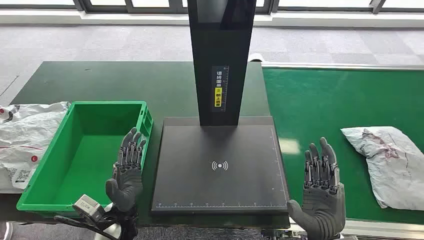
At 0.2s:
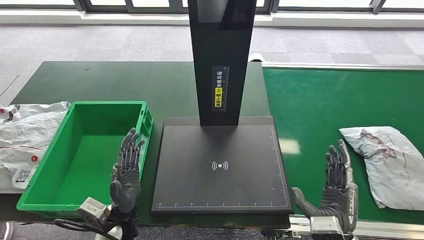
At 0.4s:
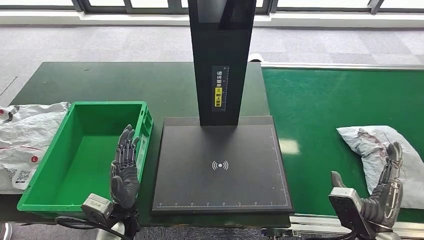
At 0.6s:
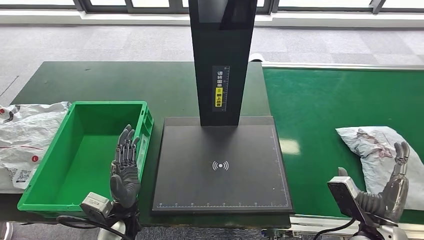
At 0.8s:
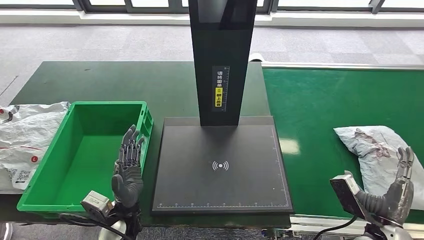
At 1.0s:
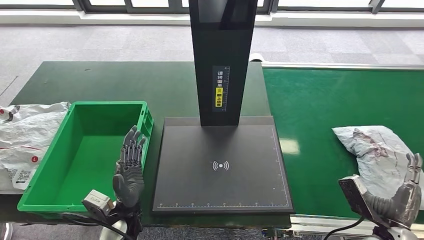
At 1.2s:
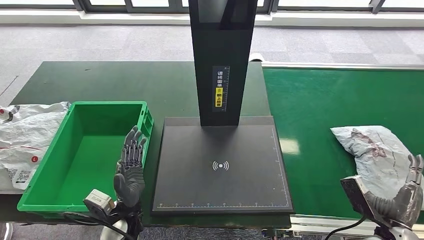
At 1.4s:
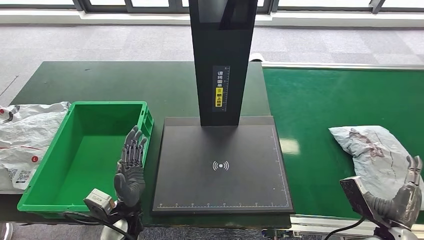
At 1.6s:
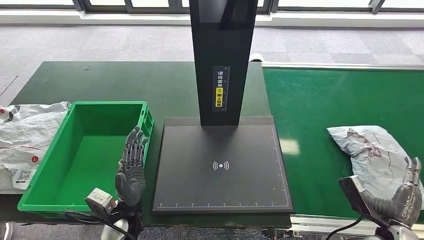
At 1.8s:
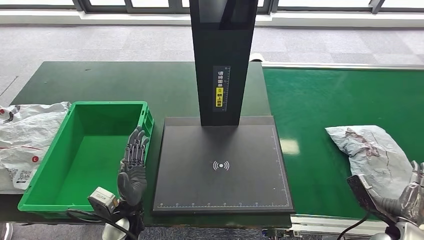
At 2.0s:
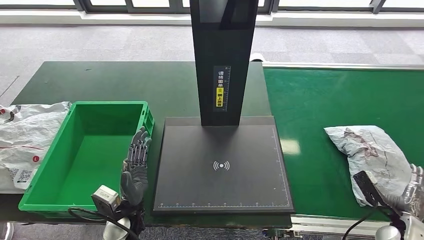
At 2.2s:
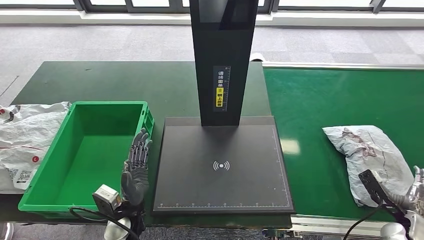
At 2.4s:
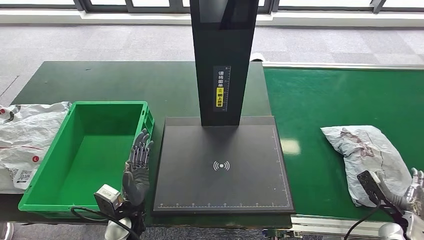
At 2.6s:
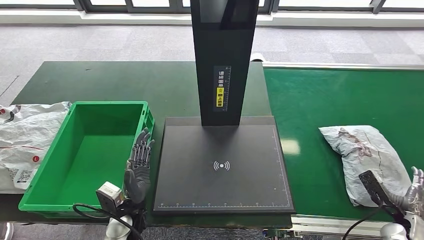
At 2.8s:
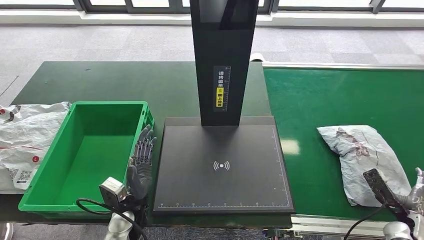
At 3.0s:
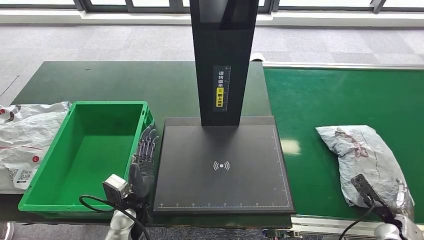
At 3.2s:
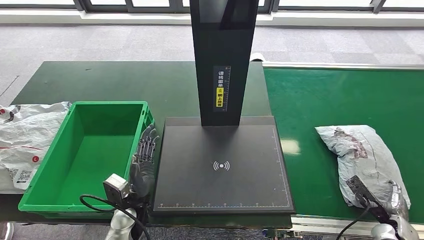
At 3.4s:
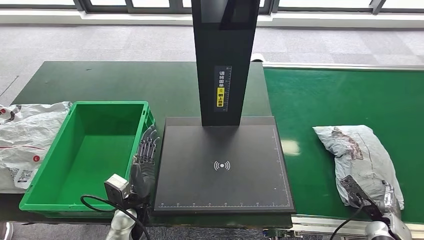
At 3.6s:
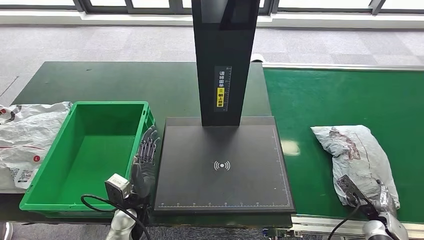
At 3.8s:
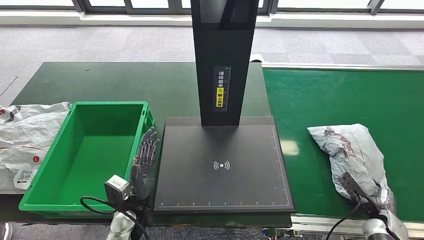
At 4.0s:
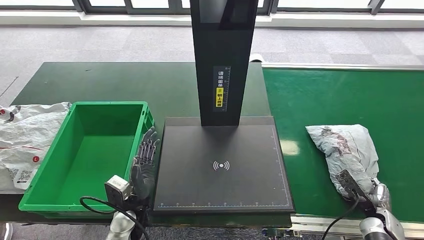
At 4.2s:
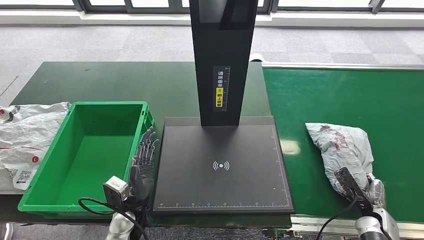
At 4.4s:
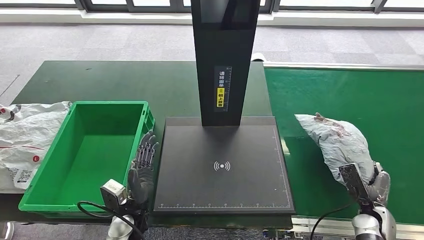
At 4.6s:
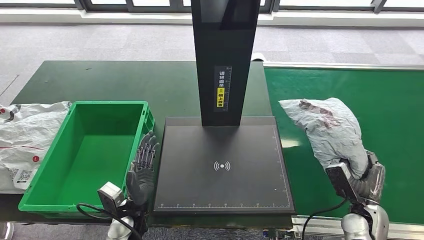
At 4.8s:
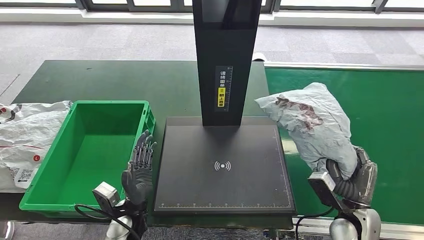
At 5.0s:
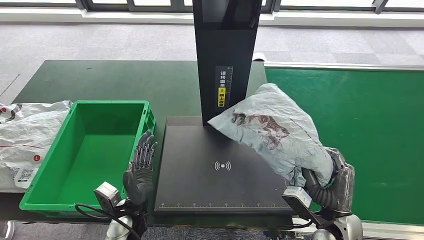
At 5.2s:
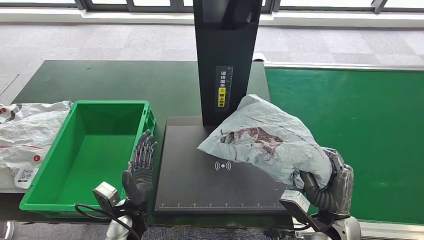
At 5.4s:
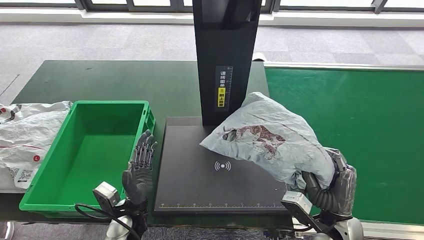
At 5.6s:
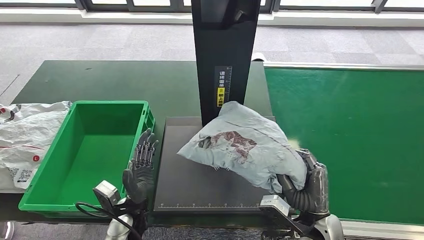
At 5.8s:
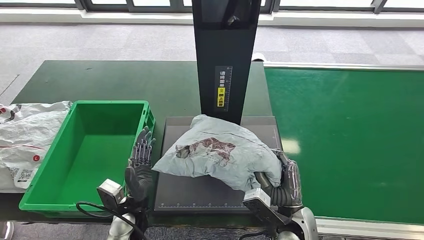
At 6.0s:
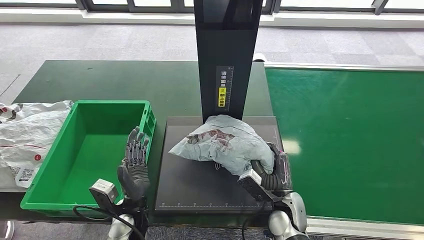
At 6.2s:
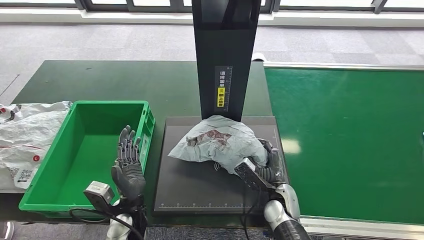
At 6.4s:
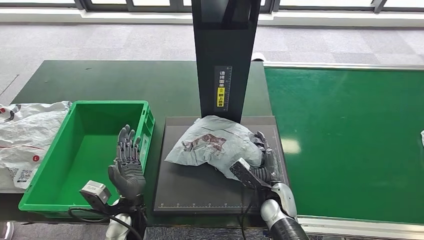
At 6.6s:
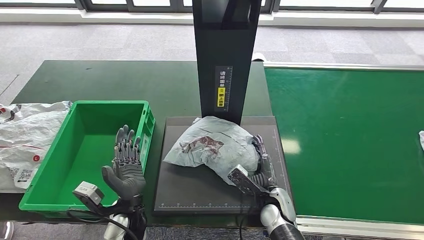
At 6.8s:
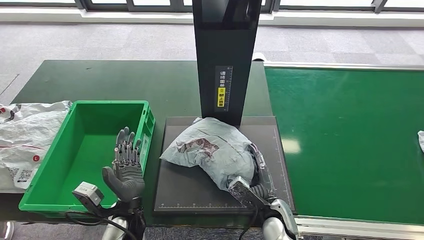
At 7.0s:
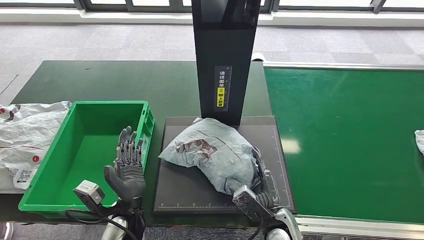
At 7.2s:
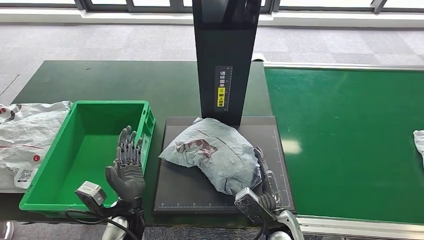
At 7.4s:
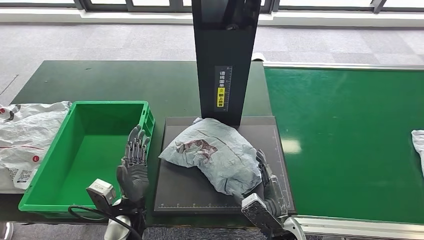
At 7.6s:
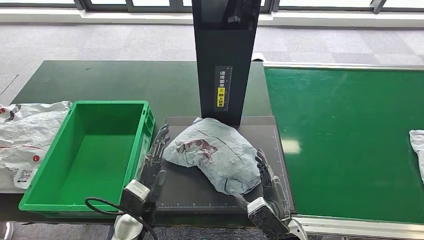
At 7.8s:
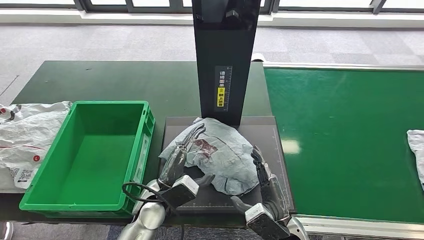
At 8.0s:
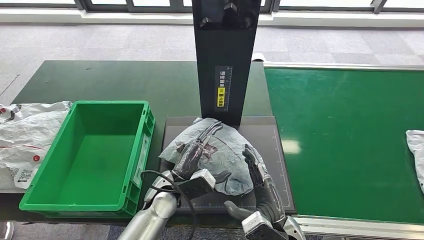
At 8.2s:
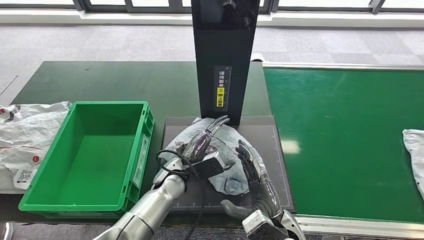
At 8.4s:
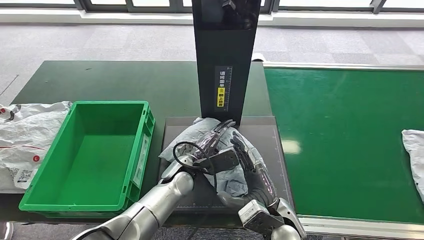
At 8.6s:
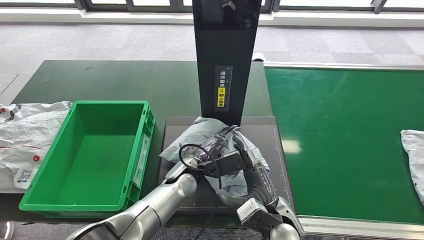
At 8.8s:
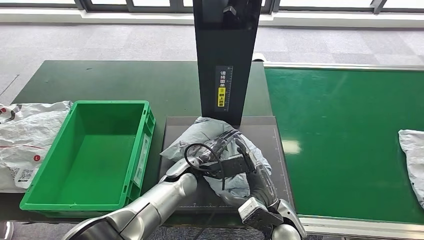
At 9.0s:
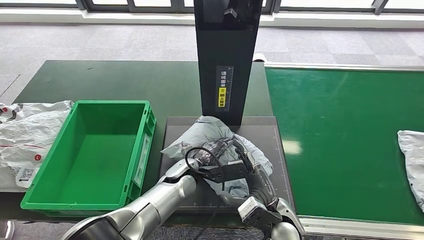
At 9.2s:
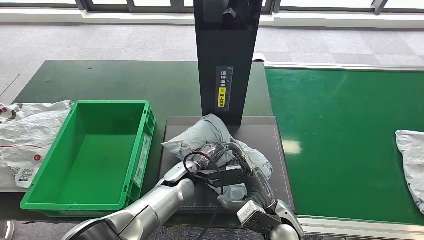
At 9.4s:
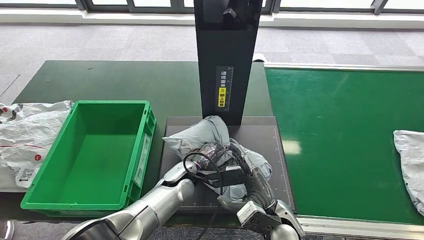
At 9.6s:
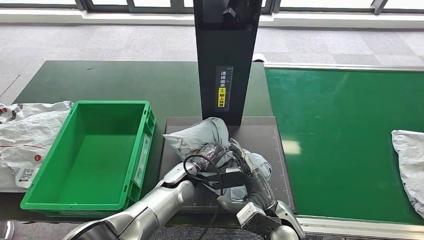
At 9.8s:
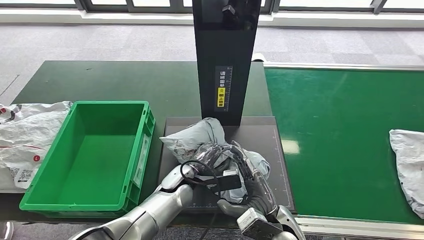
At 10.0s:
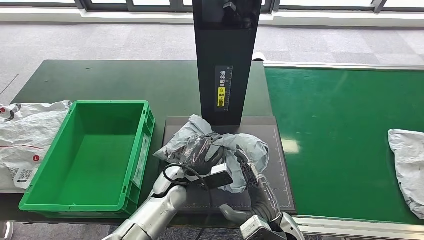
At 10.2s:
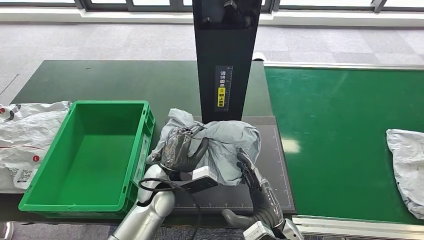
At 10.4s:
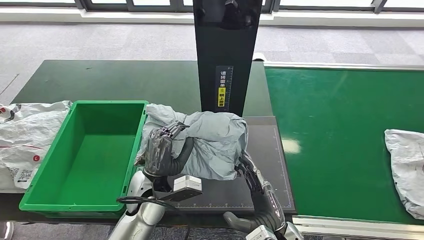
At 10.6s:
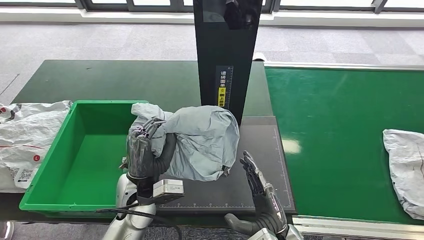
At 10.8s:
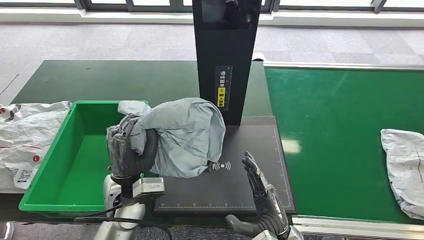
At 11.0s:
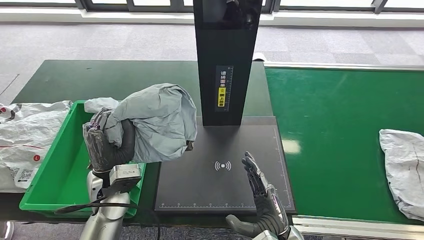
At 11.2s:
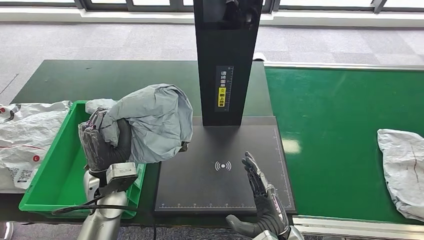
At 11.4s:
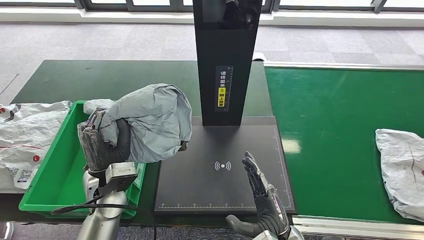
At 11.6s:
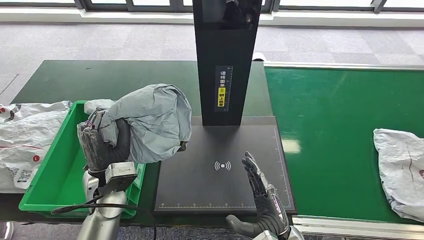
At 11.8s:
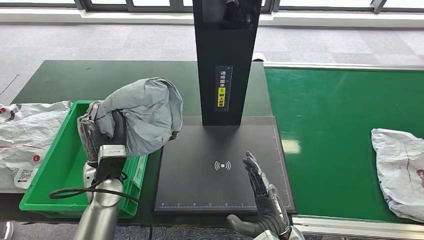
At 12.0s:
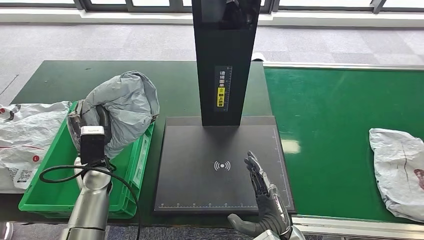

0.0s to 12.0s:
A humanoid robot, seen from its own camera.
Step, 0.0s to 5.8s: Take the parcel off the conveyor belt.
Step, 6.0s to 8.8s: Place the parcel onto the inbound machine.
Step, 9.0s to 11.8s: Pick up the parcel from the inbound machine.
1.6s to 3.0s: The right hand heads to the right and downward, covering some 10 cm.
3.0s to 4.4s: The right hand travels to the left by about 5 cm.
6.0s to 7.6s: The right hand is displaced backward by approximately 10 cm.
7.6s to 9.0s: The right hand shifts by about 5 cm; the left hand heads to the right and forward, covering some 15 cm.

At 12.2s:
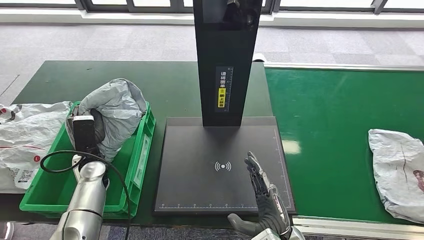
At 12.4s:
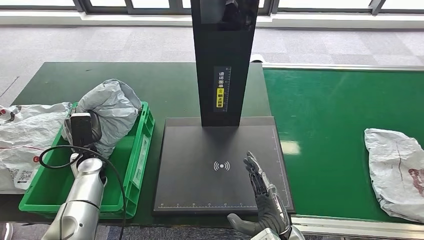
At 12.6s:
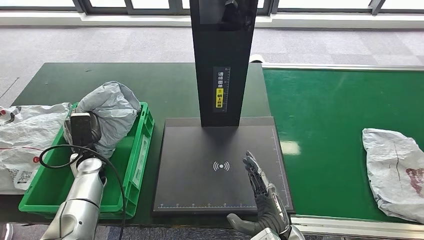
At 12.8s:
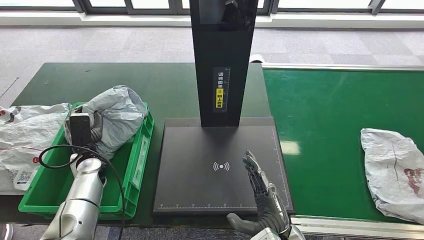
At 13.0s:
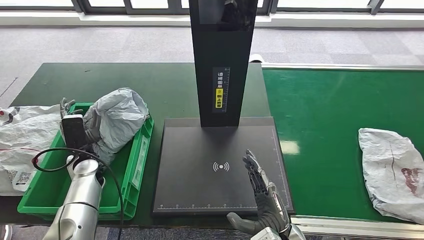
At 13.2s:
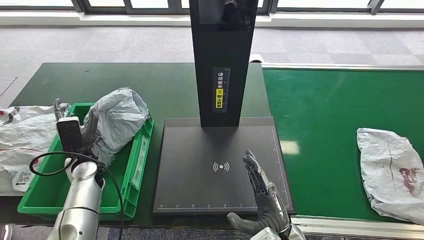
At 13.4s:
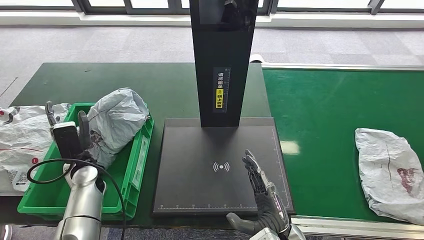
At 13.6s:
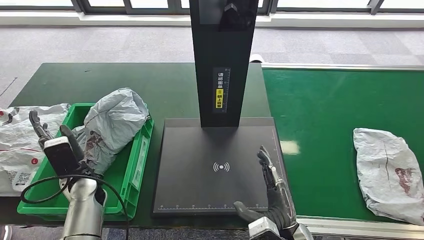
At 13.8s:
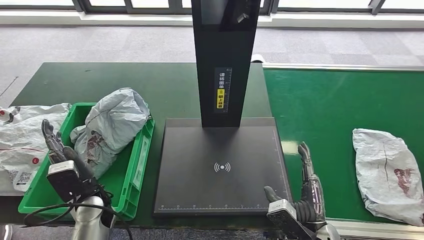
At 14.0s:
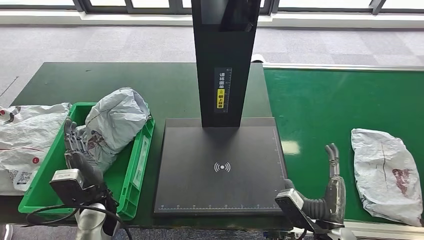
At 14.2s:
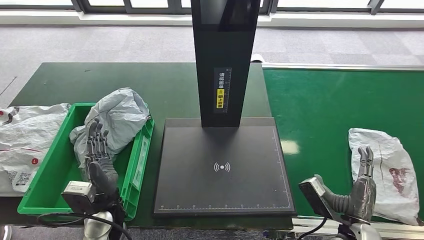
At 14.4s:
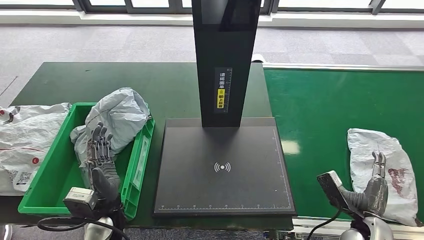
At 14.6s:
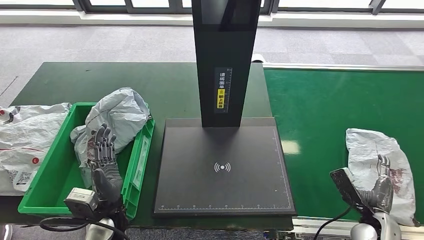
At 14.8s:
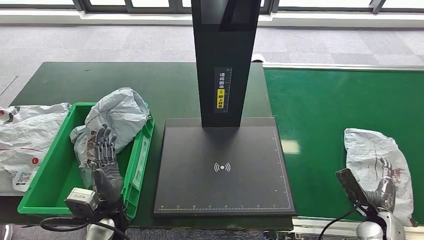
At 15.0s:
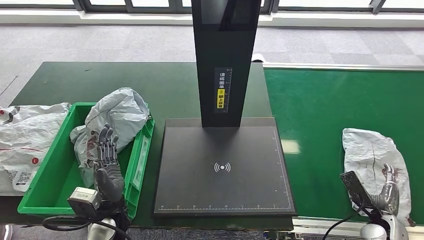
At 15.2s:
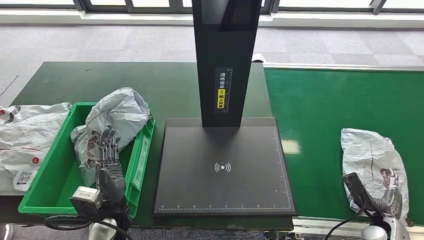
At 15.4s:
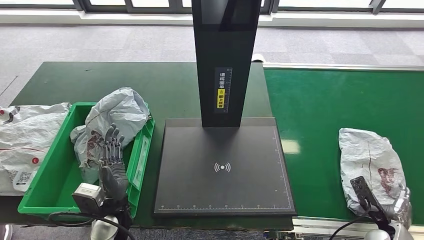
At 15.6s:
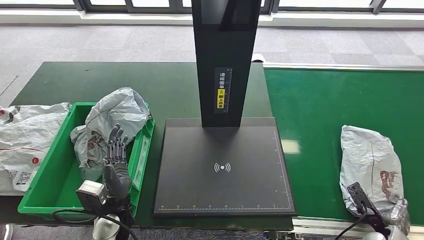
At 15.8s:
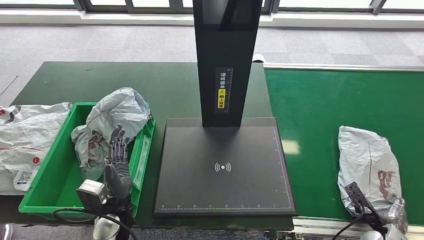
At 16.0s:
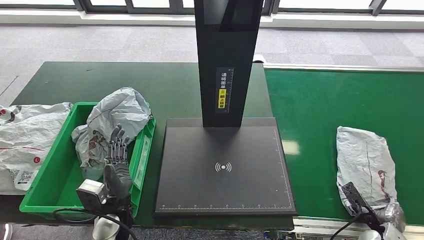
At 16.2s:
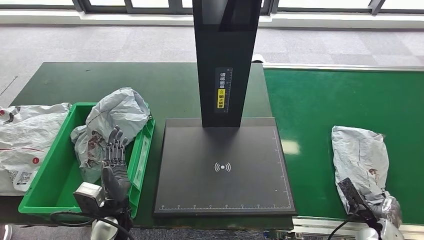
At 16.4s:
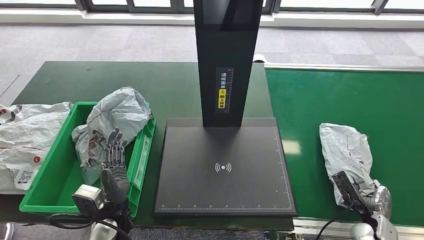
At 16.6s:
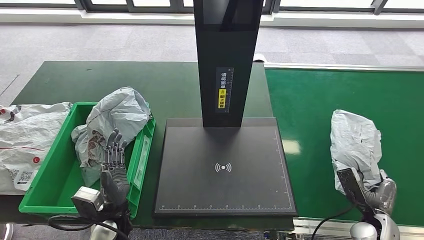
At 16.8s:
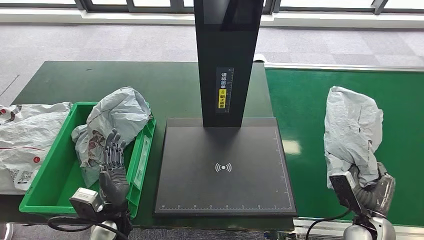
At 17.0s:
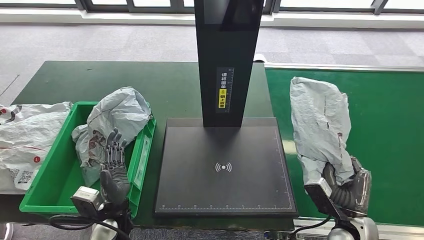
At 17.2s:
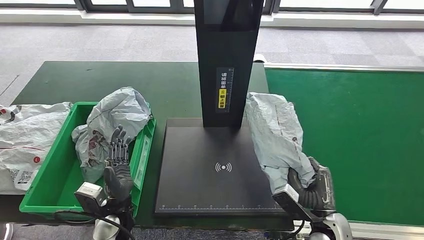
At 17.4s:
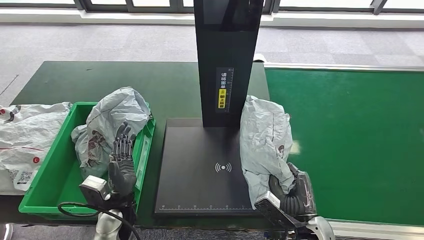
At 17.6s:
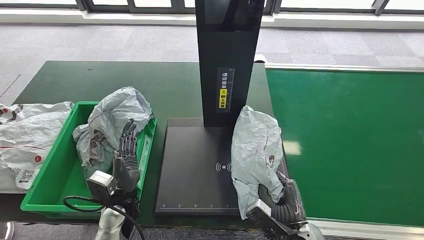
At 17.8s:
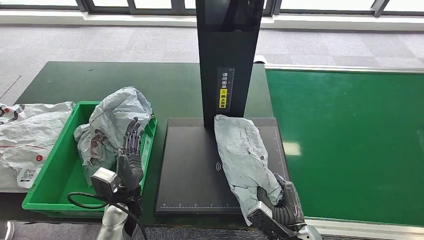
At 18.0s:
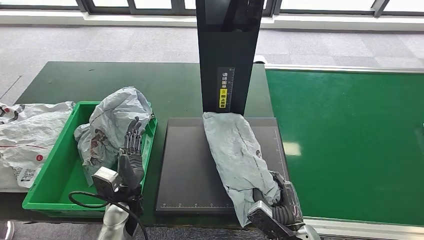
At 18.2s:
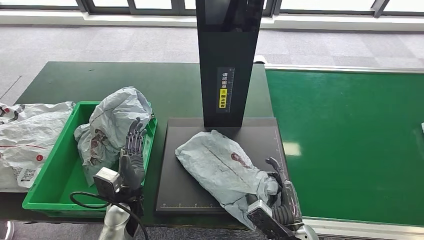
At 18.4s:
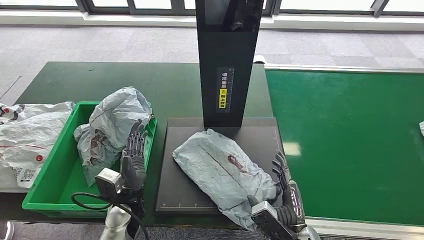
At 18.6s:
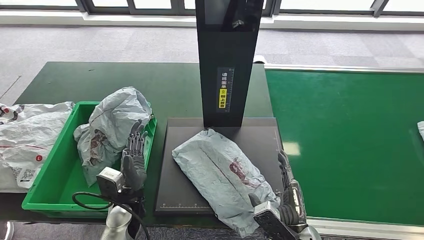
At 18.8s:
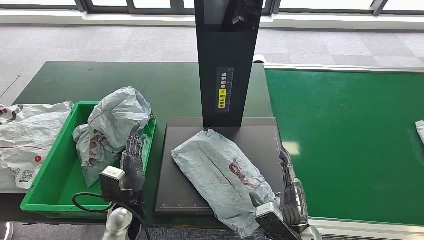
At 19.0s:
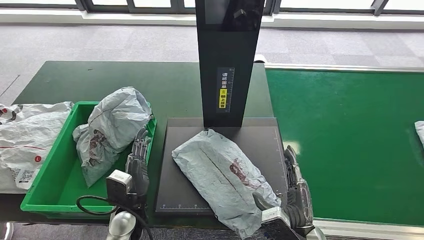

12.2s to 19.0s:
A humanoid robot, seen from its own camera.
Step, 12.2s to 15.0s: Put the parcel inside the courier box.
Step, 15.8s to 17.0s: Pick up the parcel from the conveyor belt.
13.6s to 15.0s: The right hand heads to the right, covering roughly 25 cm, while the left hand travels to the right and backward by about 10 cm.
17.6s to 19.0s: The hands stay close to where they were, moving slightly.
